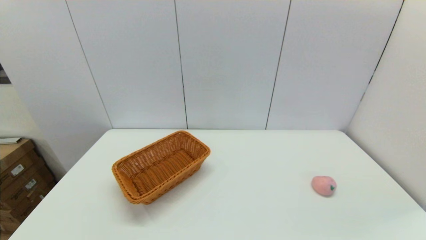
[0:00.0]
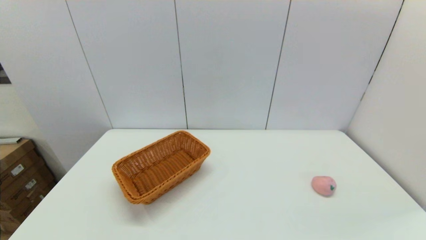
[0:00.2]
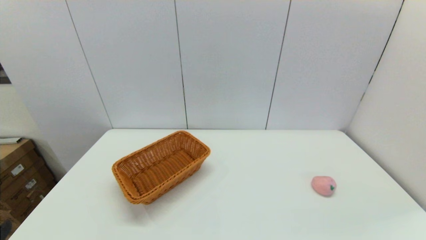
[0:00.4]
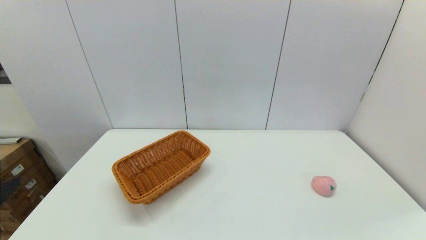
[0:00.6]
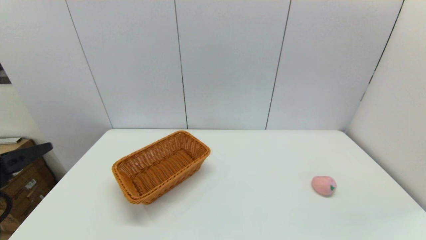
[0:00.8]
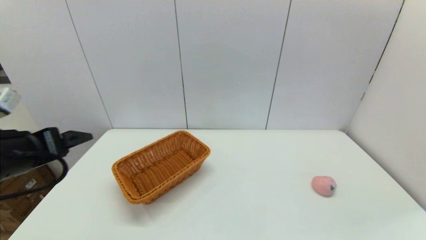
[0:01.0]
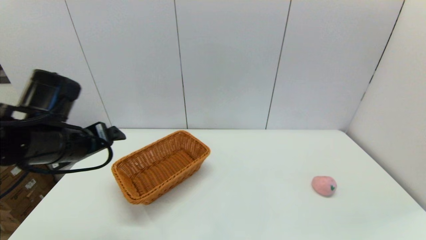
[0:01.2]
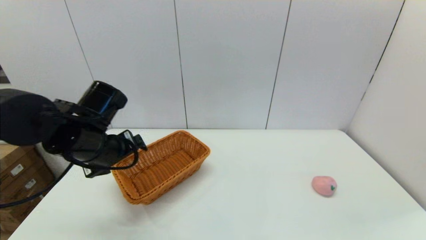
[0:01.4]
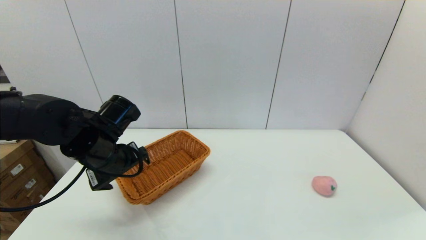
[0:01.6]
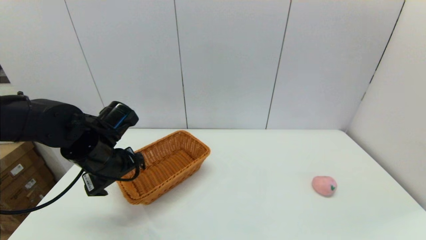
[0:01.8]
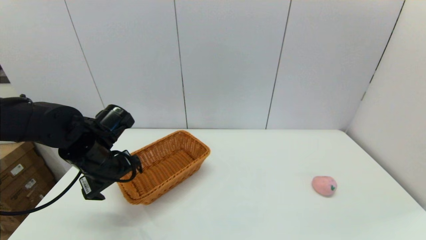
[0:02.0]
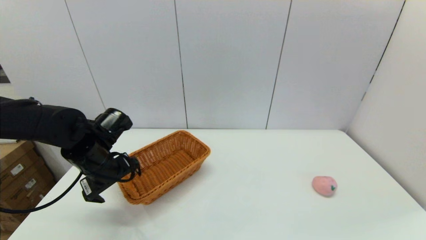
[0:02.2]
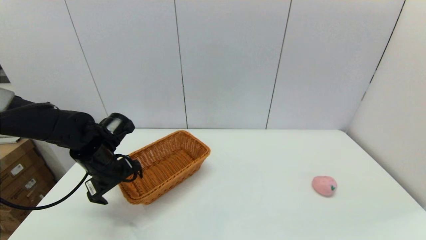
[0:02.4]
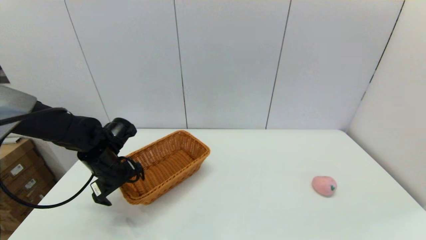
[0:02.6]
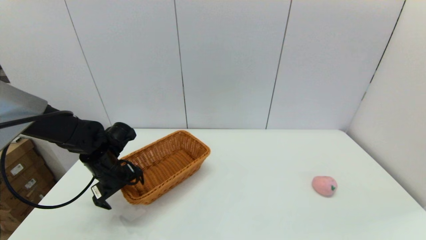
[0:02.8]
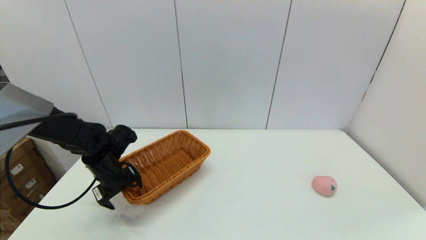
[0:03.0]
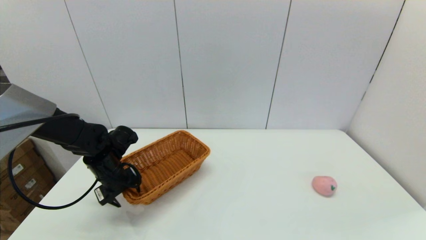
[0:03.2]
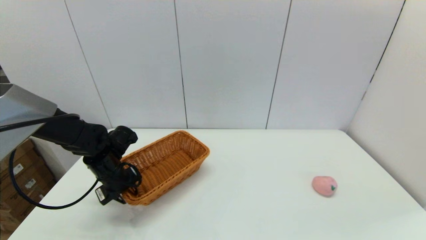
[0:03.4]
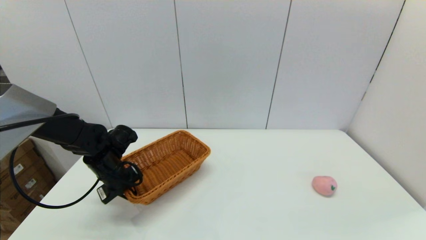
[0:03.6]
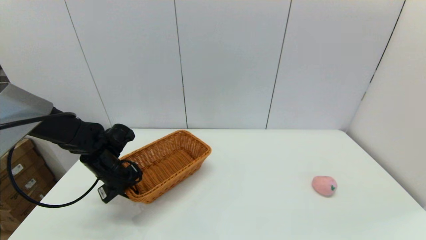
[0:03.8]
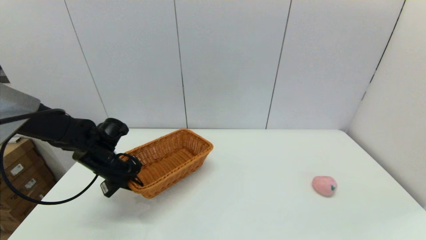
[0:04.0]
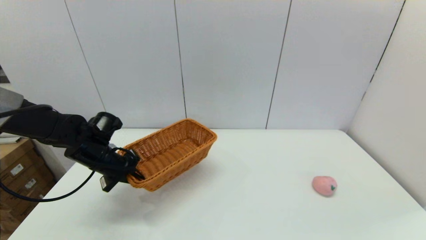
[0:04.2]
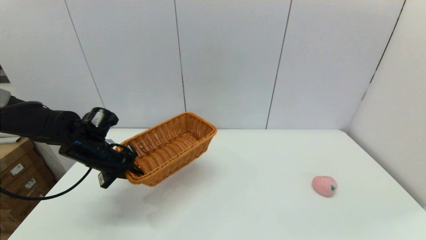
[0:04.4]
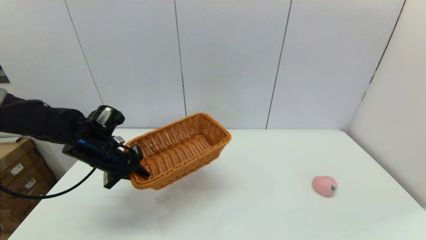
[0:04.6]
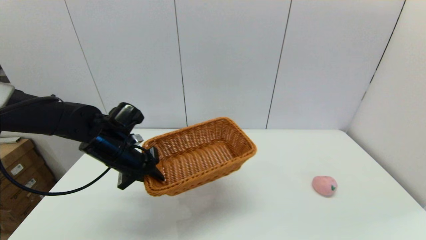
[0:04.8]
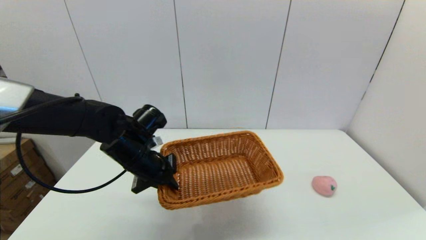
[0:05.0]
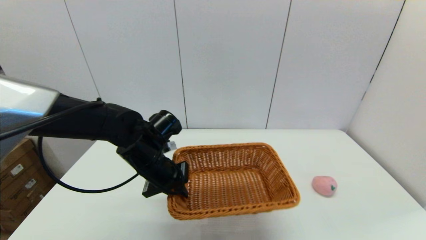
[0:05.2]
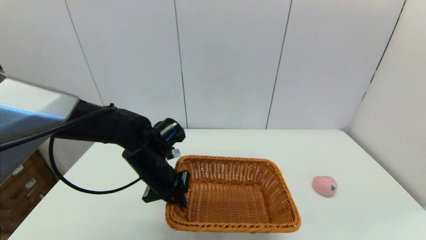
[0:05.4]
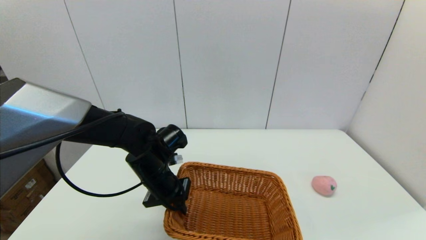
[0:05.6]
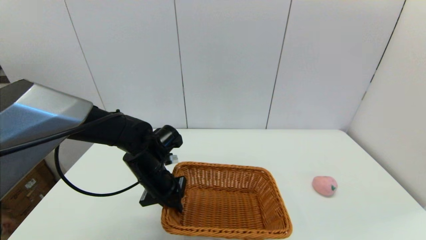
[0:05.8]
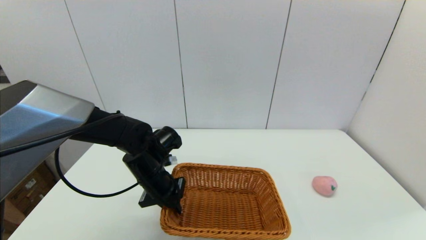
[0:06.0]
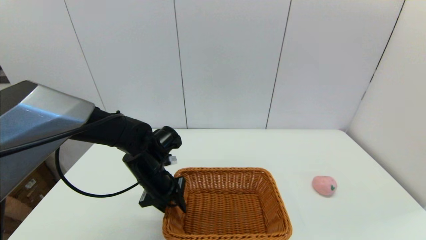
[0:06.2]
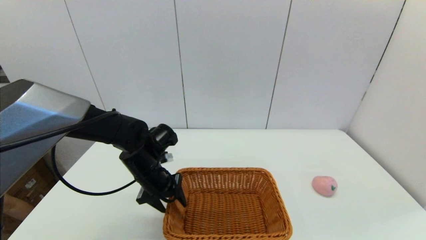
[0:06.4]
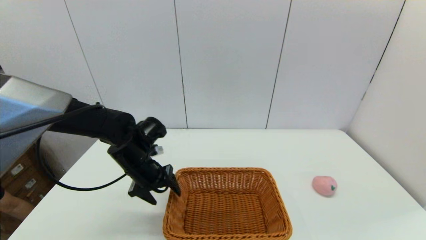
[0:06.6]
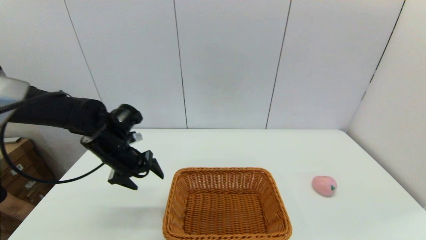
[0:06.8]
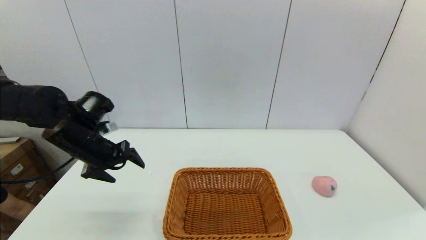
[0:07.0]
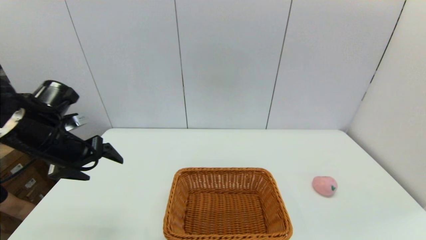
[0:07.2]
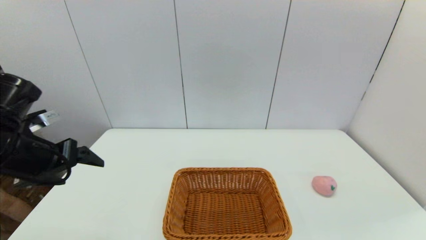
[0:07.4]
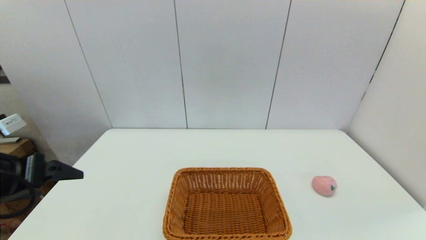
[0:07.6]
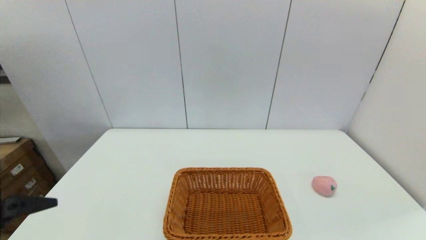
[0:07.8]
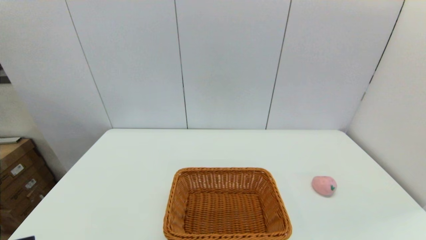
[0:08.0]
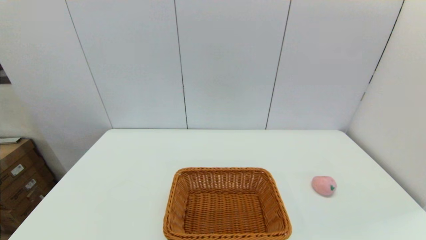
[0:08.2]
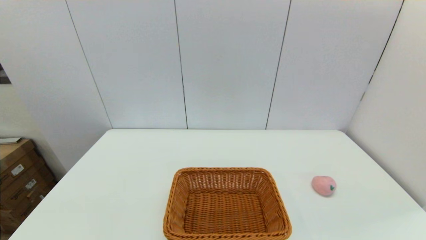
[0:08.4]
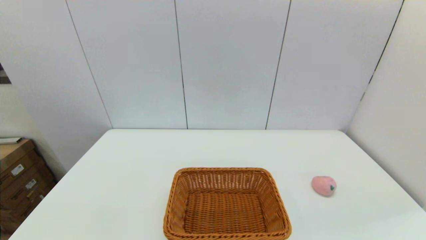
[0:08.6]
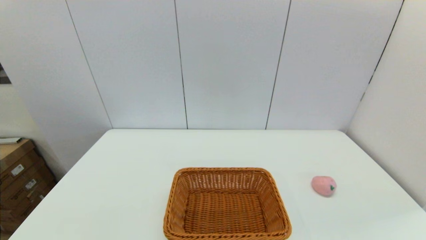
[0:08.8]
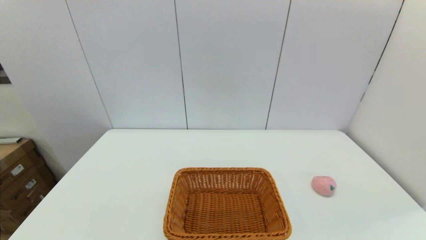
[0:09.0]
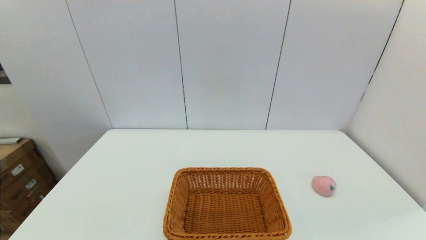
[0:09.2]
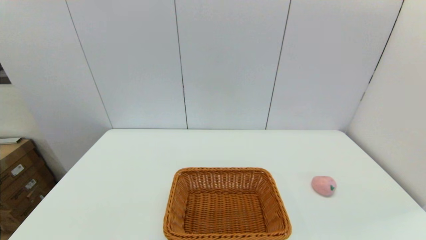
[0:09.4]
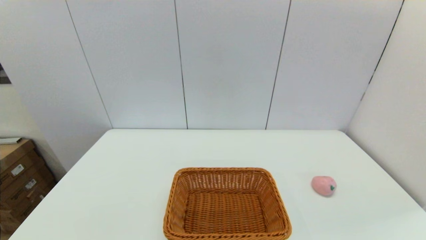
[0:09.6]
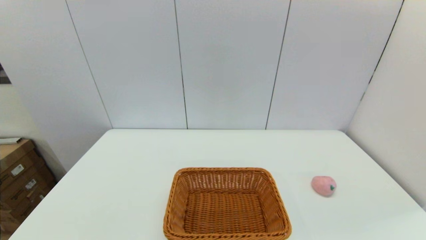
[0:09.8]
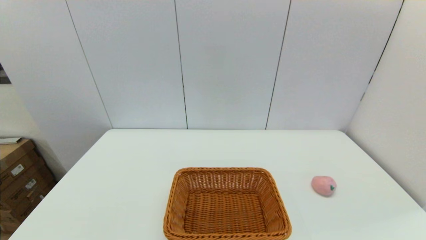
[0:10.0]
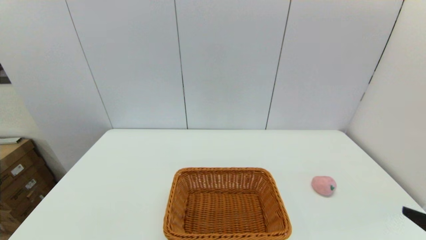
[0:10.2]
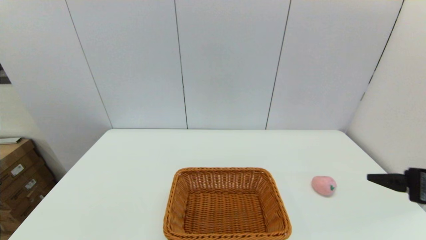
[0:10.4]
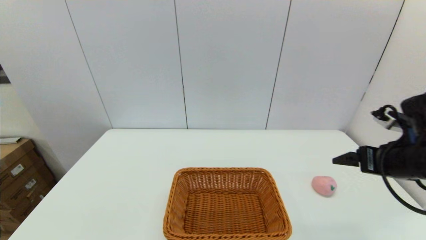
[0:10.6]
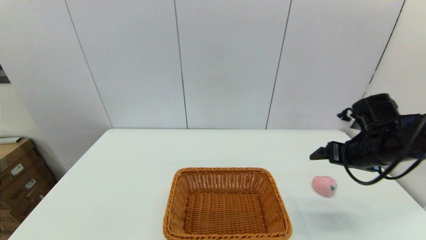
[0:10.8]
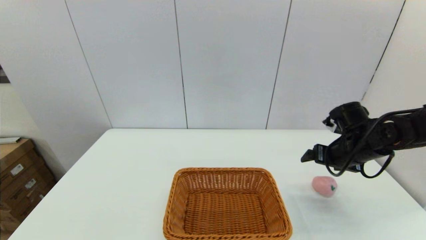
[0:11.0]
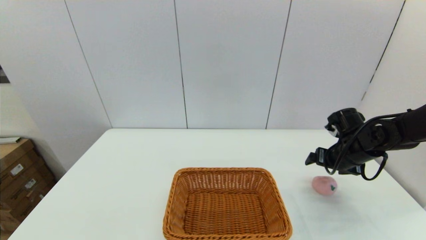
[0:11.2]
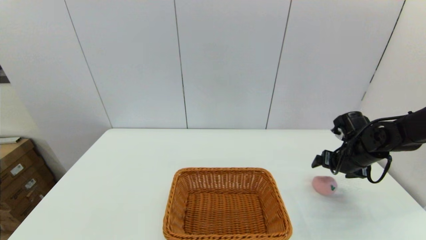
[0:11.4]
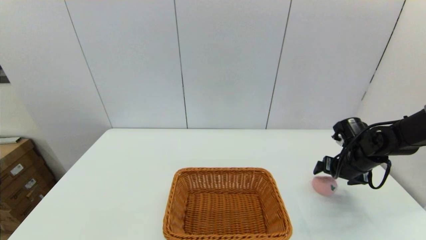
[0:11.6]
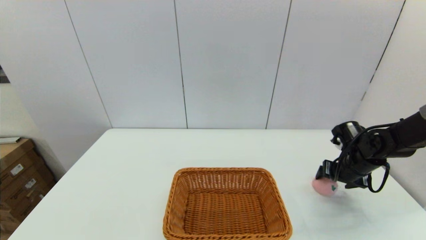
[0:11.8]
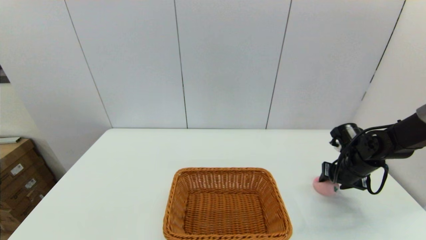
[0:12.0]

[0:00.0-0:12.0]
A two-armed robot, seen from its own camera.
Step, 0:00.0 to 0:03.8: Grasp the light basket with the left gripper.
Step, 0:04.0 to 0:06.4: Place the light basket on the middle of the table with the left gripper.
0:00.0 to 0:01.6: The left gripper goes about 30 cm forward.
0:01.6 to 0:03.0: The left gripper travels downward and forward by some 10 cm.
0:03.0 to 0:04.4: The left gripper closes up.
0:04.4 to 0:06.0: The left gripper is displaced to the right by approximately 15 cm.
0:06.0 to 0:07.6: The left gripper travels to the left, backward and upward by approximately 25 cm, and opens its fingers.
0:07.6 to 0:09.0: The left gripper goes approximately 20 cm backward and downward.
0:09.0 to 0:10.4: The right gripper is displaced forward and upward by roughly 20 cm.
0:10.4 to 0:12.0: The right gripper moves forward and downward, about 25 cm, and closes up.

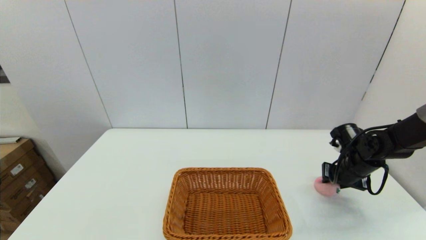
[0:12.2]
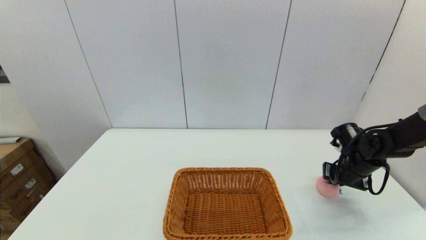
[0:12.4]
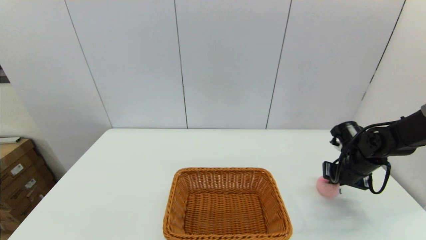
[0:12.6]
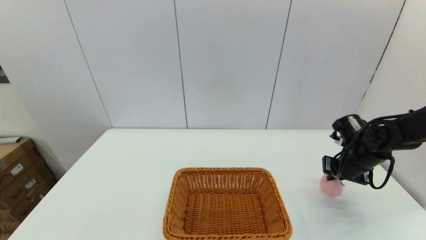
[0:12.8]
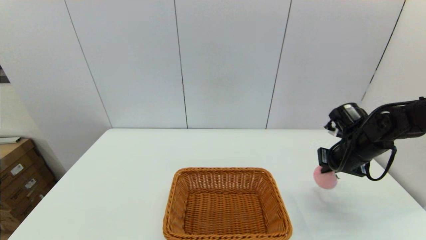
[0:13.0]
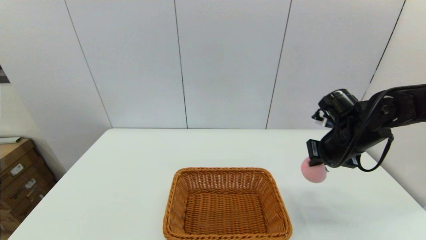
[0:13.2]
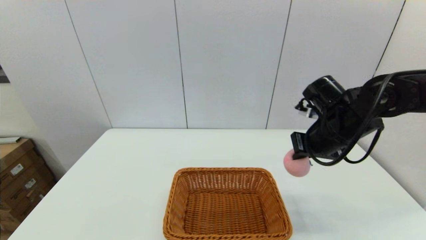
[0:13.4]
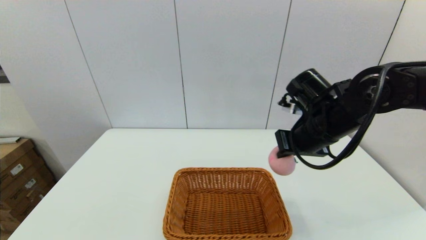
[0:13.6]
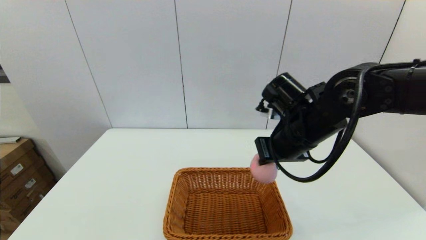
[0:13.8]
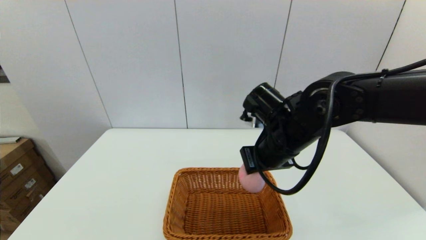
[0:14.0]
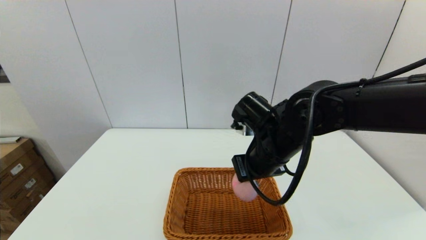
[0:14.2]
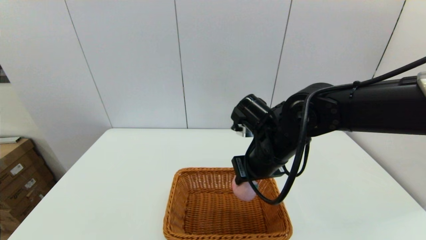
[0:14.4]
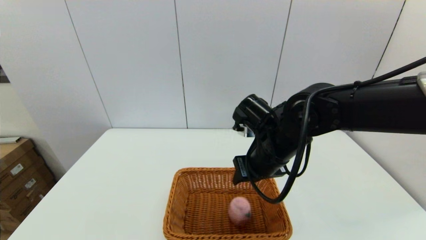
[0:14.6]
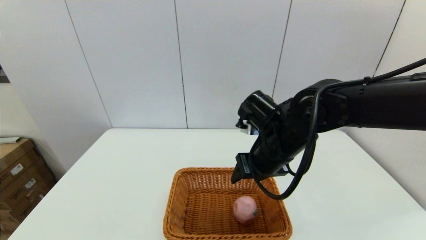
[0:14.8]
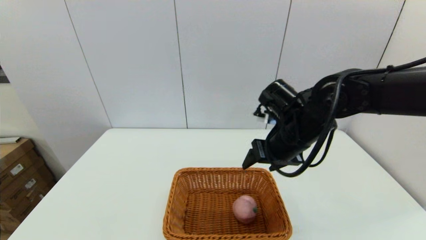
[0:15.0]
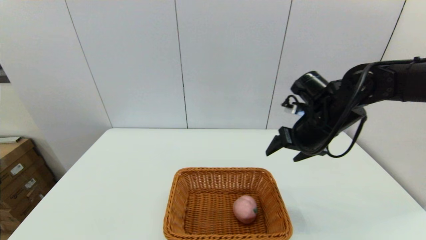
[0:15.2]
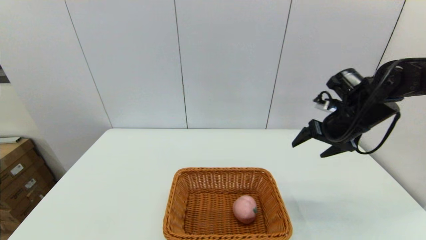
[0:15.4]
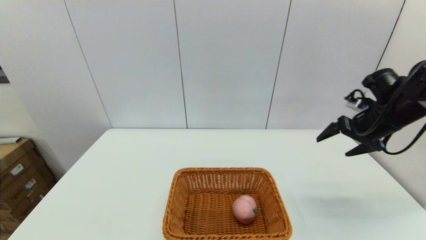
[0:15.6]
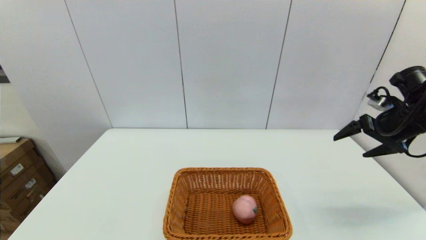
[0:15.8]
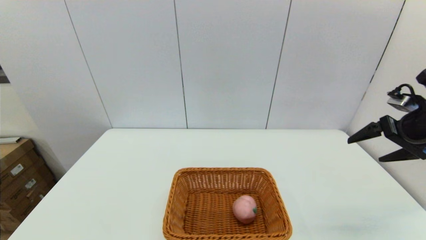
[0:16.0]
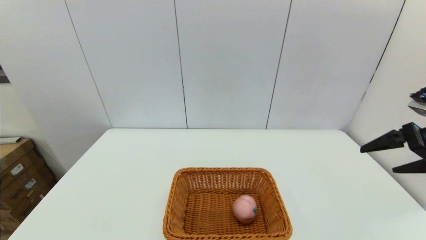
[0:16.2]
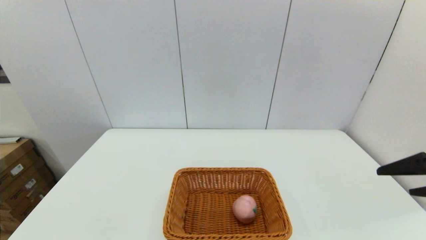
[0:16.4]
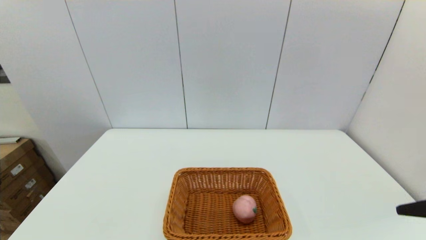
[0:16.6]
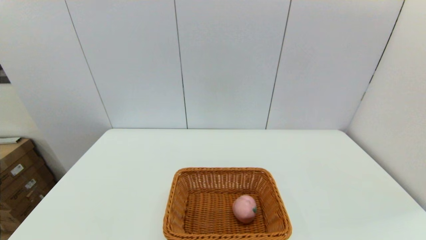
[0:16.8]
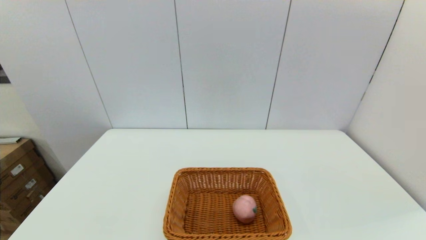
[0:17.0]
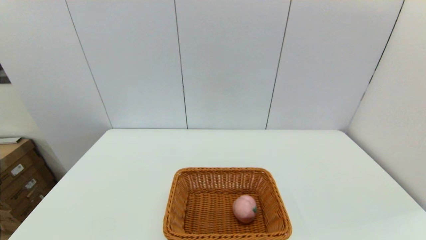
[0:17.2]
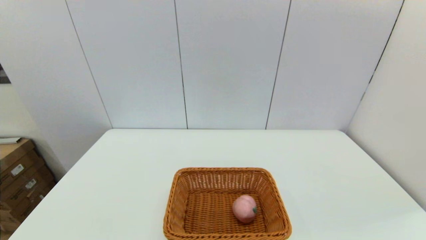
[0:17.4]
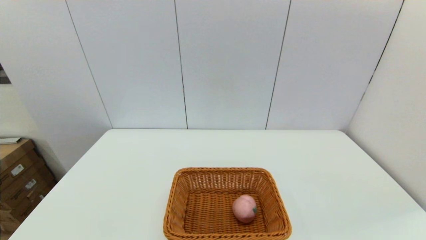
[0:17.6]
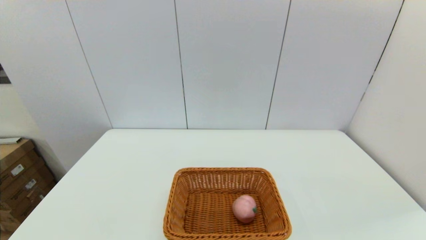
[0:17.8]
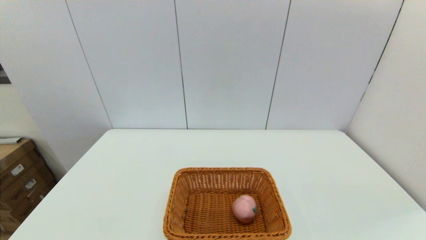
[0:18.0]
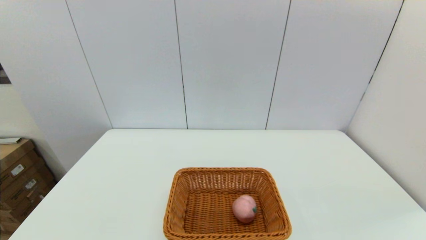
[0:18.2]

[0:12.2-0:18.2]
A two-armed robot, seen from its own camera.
Step, 0:12.6 to 0:14.6: Place the peach into the light basket with the right gripper.
0:12.2 to 0:13.8: The right gripper moves to the left and upward, roughly 25 cm.
0:13.8 to 0:15.2: The right gripper heads to the right, covering approximately 10 cm, and opens up.
0:15.2 to 0:16.6: The right gripper goes approximately 25 cm backward and to the right.
